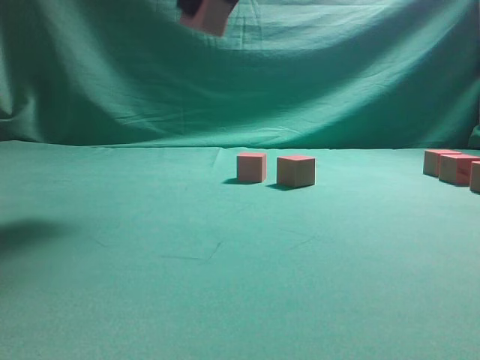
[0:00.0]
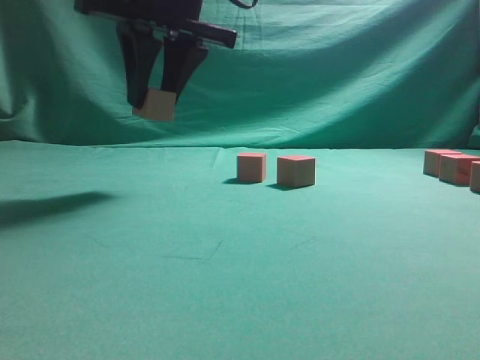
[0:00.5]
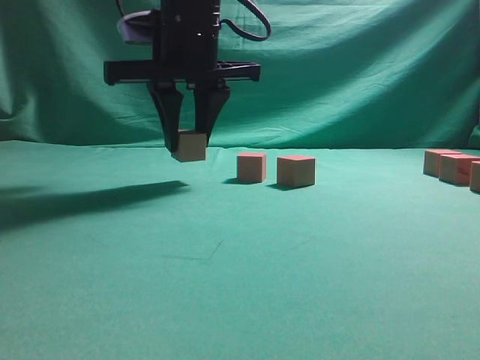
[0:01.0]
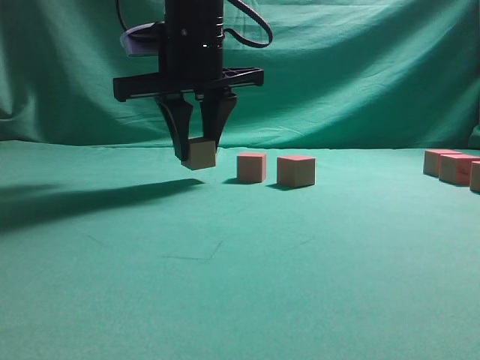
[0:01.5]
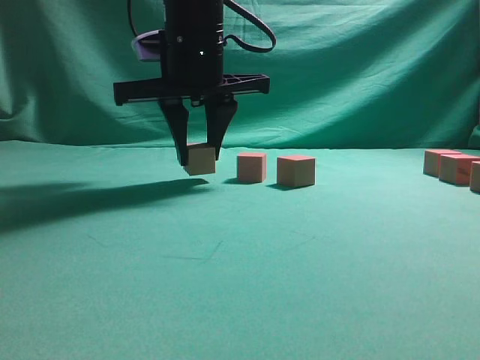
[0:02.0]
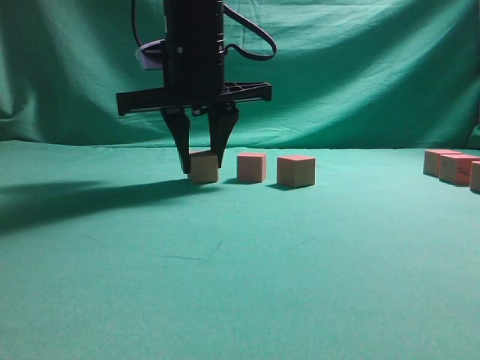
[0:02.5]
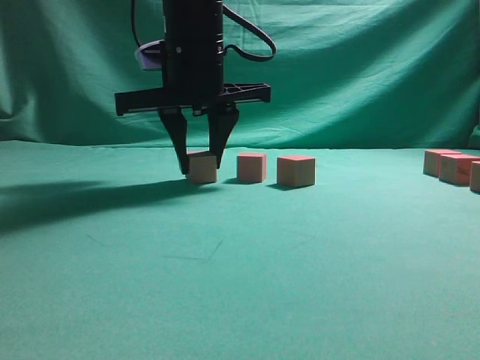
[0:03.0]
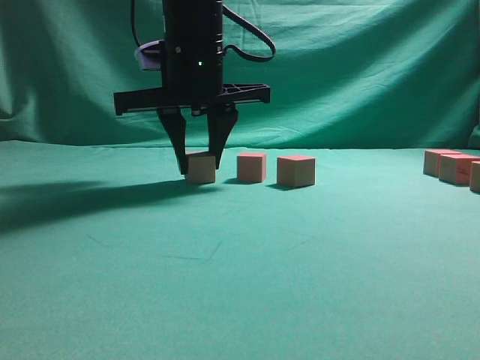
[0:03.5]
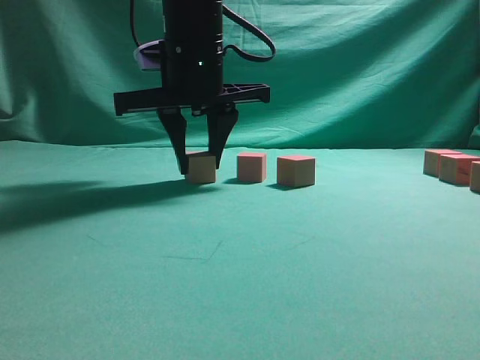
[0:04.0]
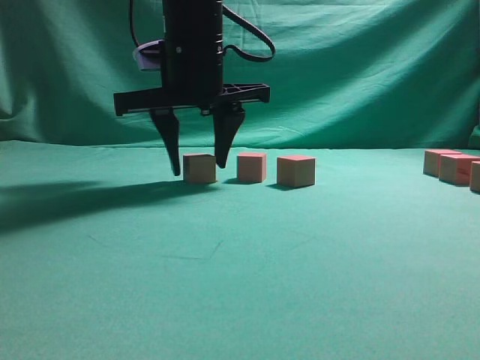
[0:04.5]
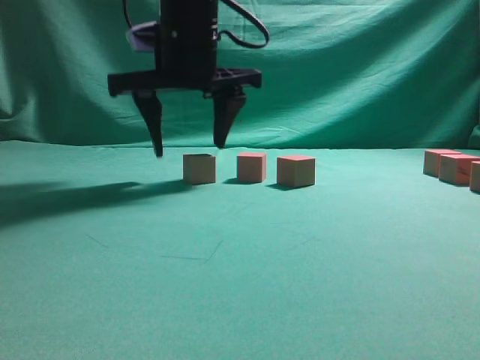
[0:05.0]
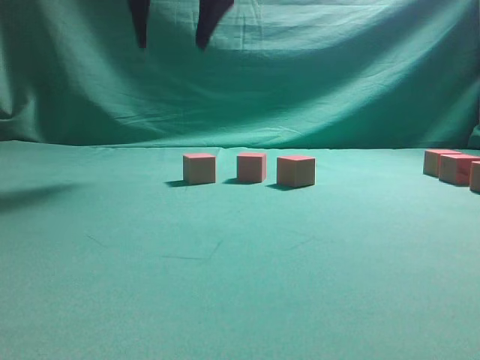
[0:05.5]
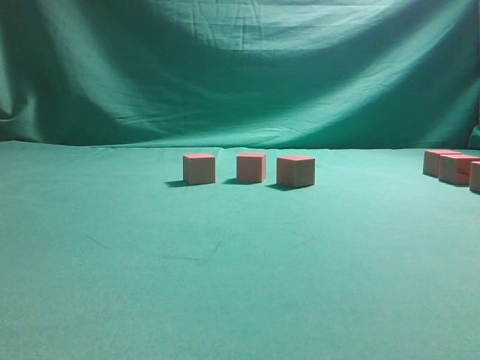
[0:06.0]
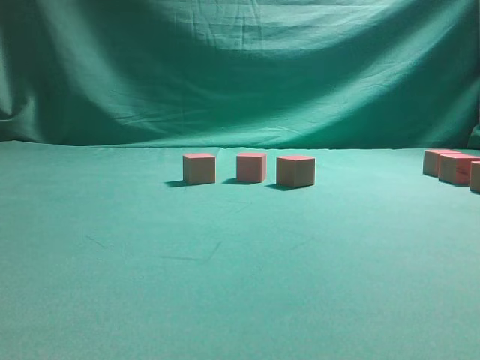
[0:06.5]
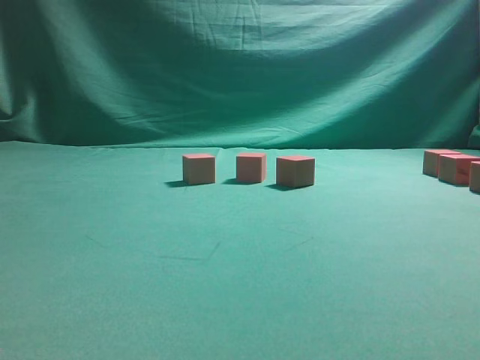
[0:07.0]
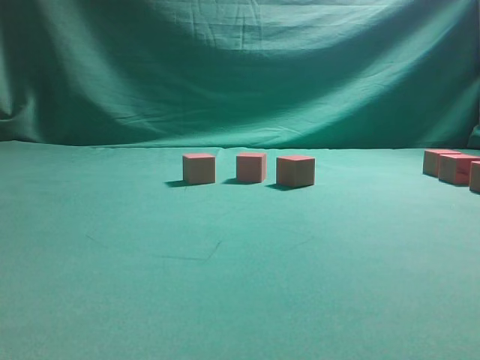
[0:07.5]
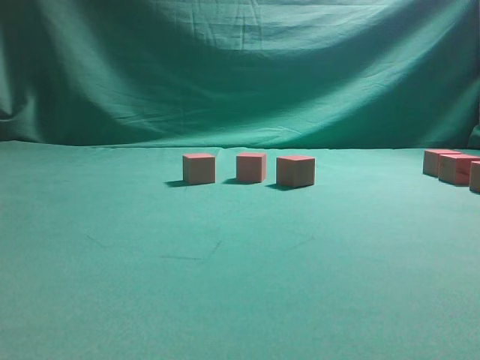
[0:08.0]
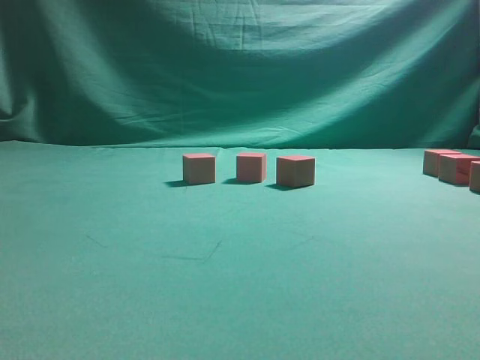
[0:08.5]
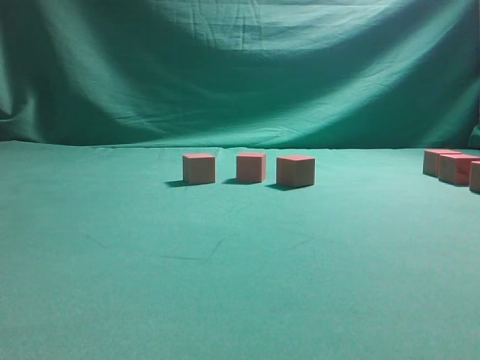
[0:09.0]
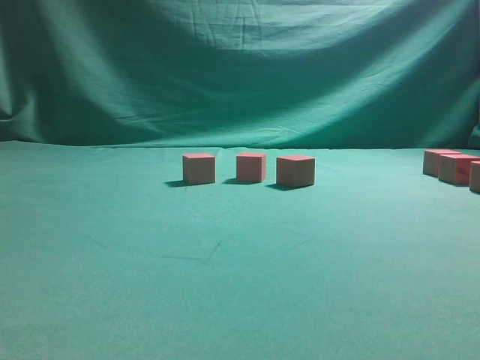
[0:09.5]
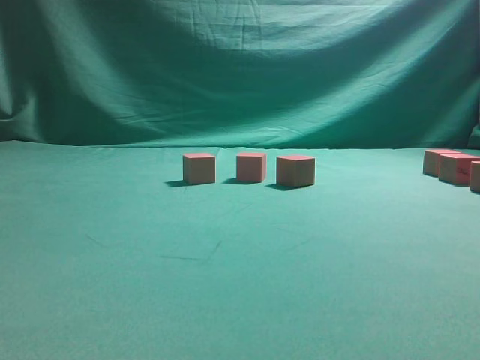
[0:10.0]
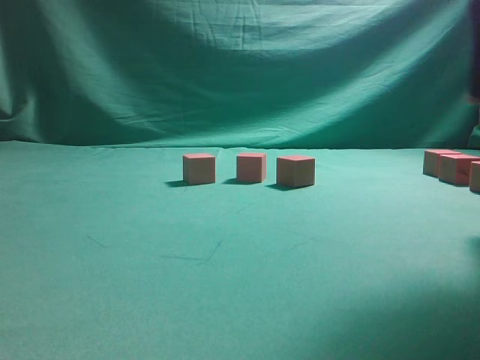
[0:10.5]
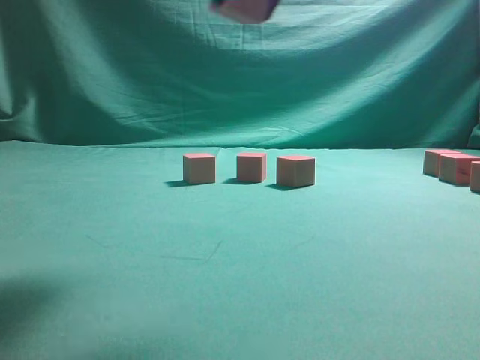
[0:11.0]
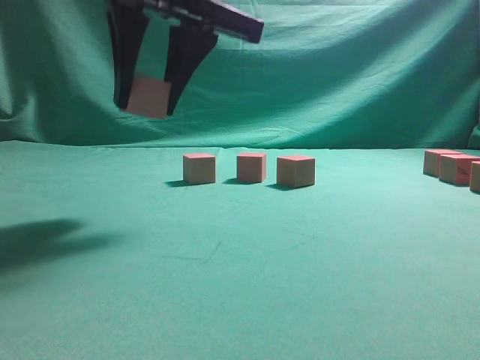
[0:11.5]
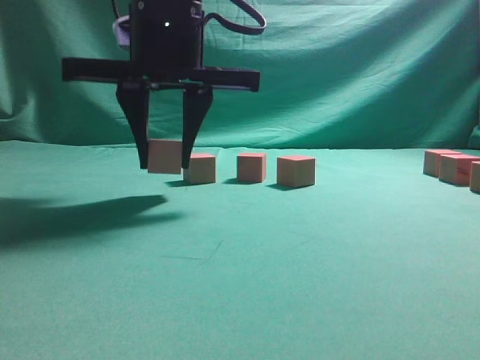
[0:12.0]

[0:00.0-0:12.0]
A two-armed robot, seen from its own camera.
Task of the whole recording: pick up the multiple cubes in two columns one by one and place them in another position on the table.
Step, 0:00.0 to 0:05.0: Place the block at the correct position to assemble the letter S.
Step, 0:05.5 to 0:11.0: Pick up the block on the table.
0:00.0 to 0:02.0: The right gripper is displaced downward, to the left and forward by some 15 cm.
0:02.0 to 0:04.0: Both grippers stay about where they are.
0:04.0 to 0:06.0: The right gripper is displaced upward by some 30 cm, and opens up.
0:10.0 to 0:12.0: The right gripper heads to the left, covering approximately 35 cm.

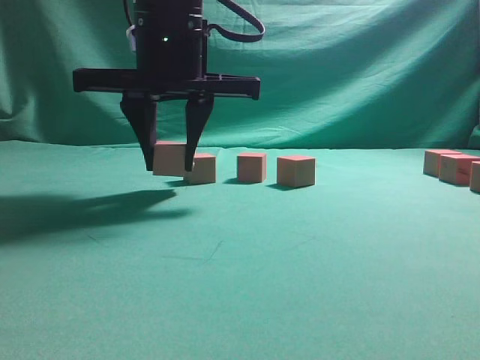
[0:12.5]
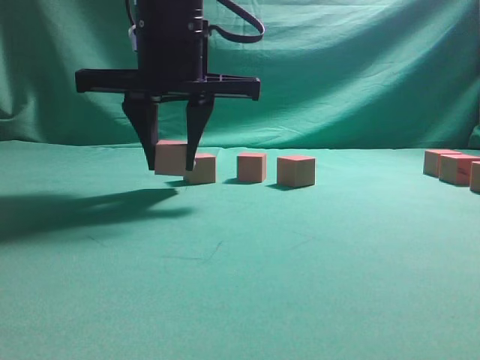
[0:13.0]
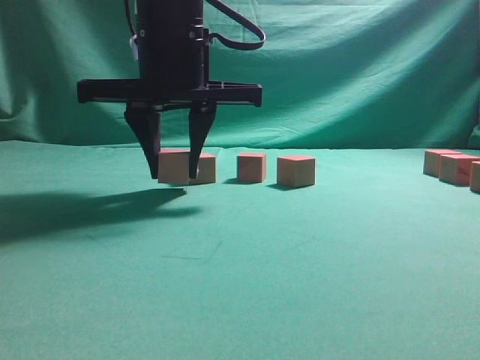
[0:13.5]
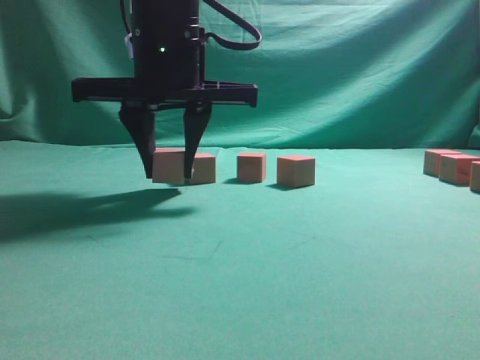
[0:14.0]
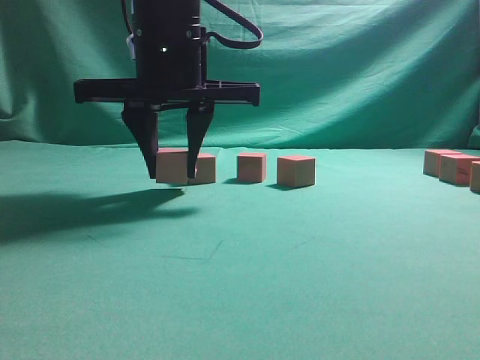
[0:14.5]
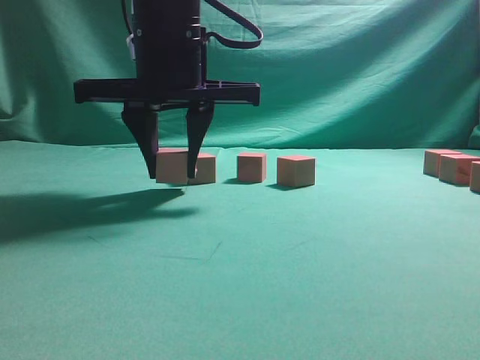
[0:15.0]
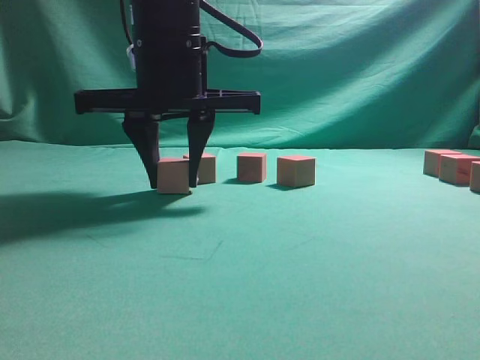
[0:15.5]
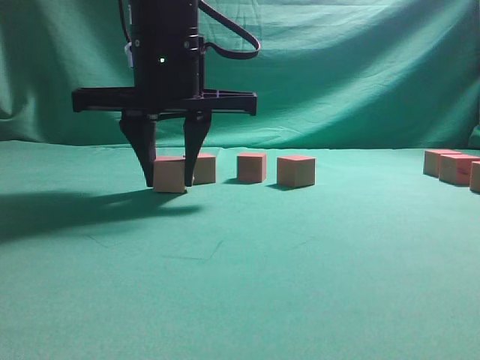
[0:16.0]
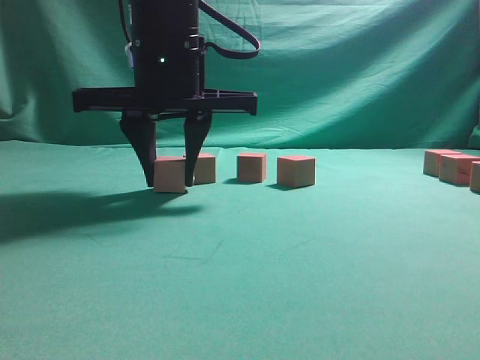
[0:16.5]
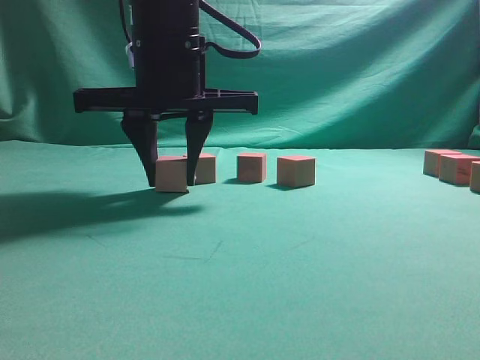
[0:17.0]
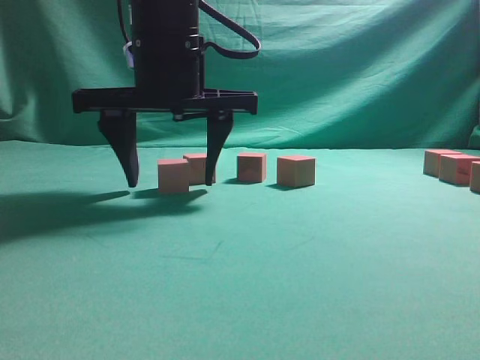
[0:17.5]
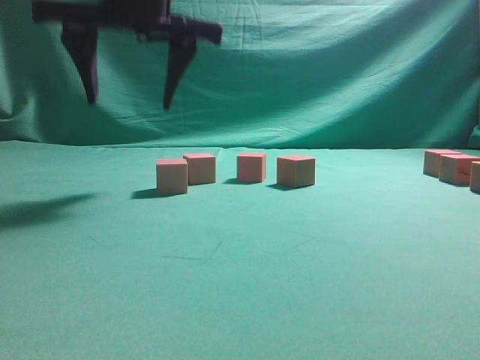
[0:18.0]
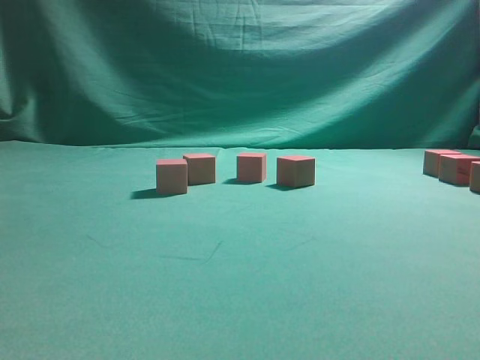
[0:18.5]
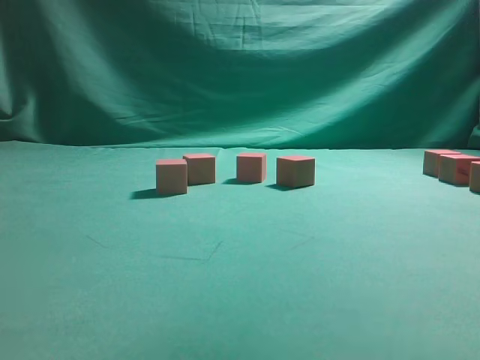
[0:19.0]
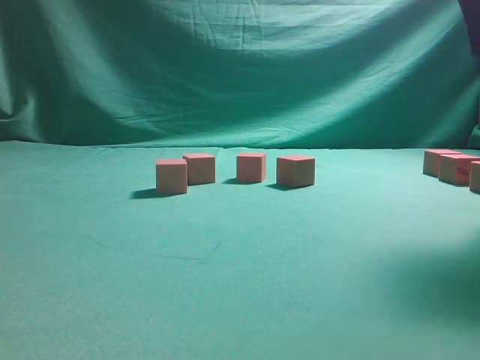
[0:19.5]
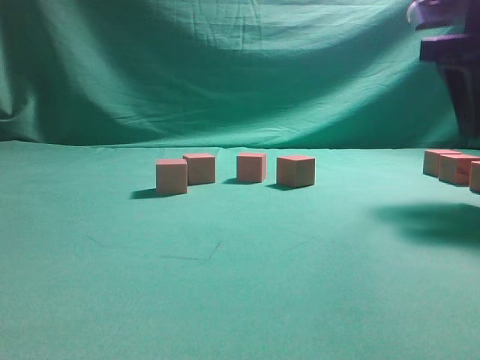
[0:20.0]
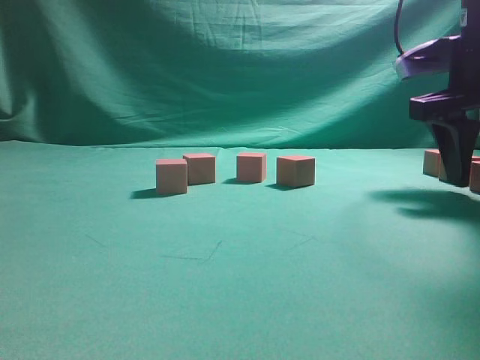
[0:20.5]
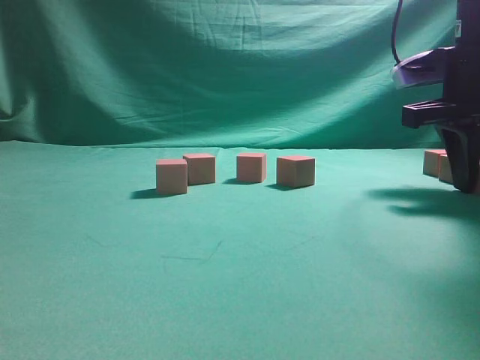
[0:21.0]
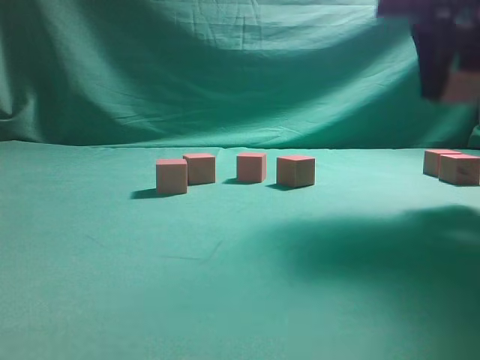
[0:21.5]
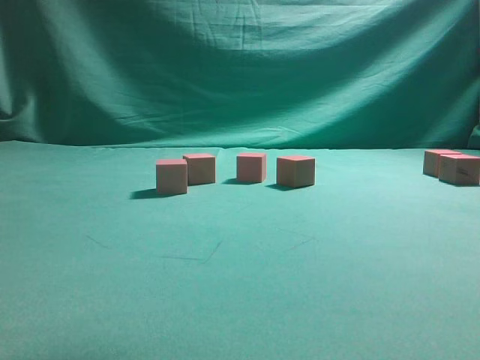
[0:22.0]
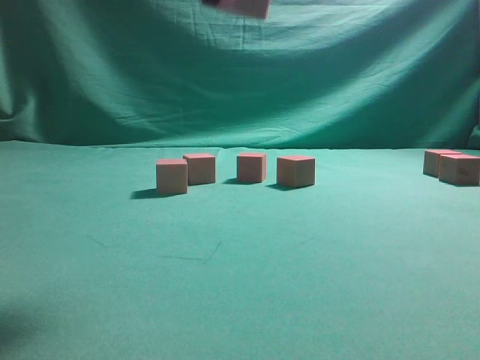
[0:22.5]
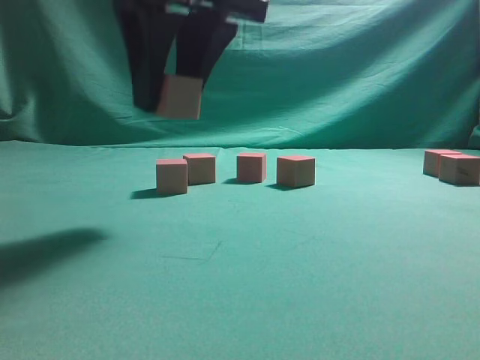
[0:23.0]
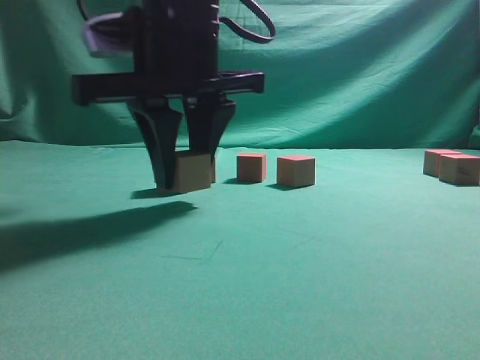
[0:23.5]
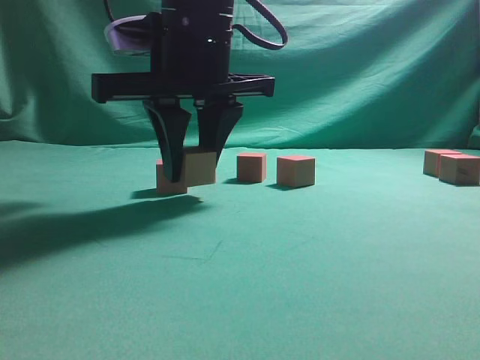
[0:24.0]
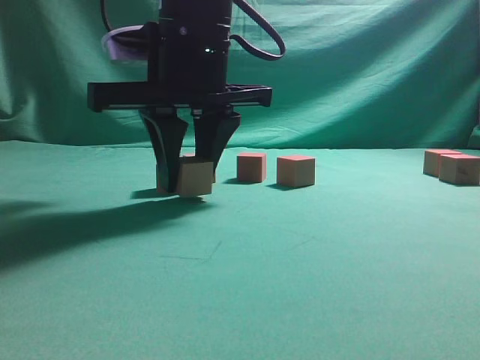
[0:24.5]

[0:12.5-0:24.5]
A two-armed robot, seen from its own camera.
Task of the whole recording: pick up the multiple cubes in two columns one by one and place them in another position on the table.
Step, 0:12.5 to 0:18.0: Place the block at the correct position to assemble the letter S.
Step, 0:18.5 to 0:21.5: Pick up the block on the table.
0:12.5 to 0:14.5: The two grippers keep their place.
0:14.5 to 0:16.5: Both grippers stay about where they are.
0:16.5 to 0:18.5: The right gripper travels upward by roughly 25 cm, and opens.
0:18.5 to 0:20.5: The right gripper moves to the right and downward, roughly 35 cm.
0:20.5 to 0:22.5: The right gripper is displaced to the left, backward and upward by approximately 25 cm, and closes.
0:22.5 to 0:24.5: The right gripper travels downward, forward and to the left by some 15 cm.

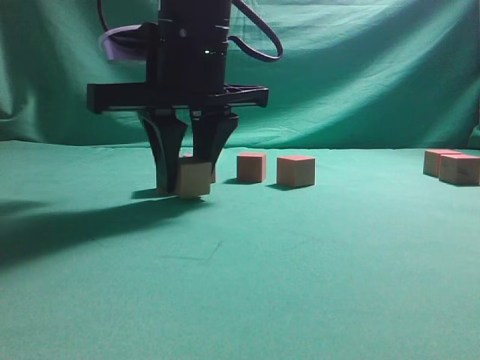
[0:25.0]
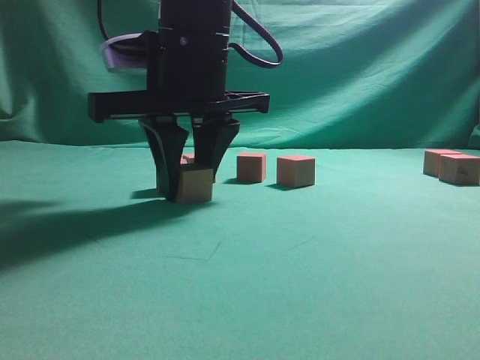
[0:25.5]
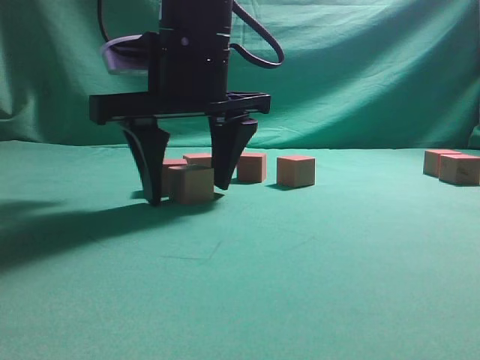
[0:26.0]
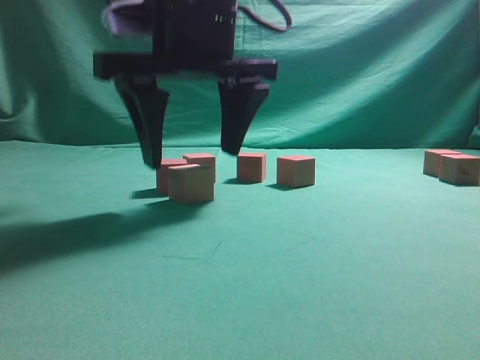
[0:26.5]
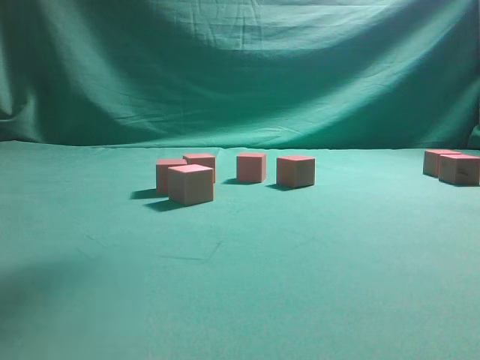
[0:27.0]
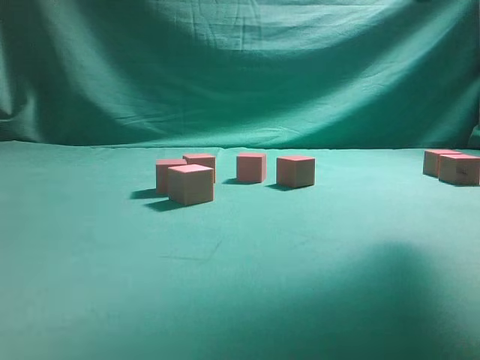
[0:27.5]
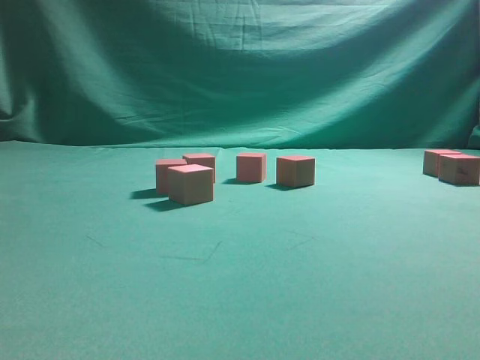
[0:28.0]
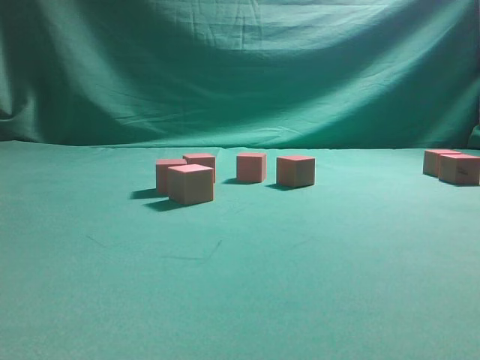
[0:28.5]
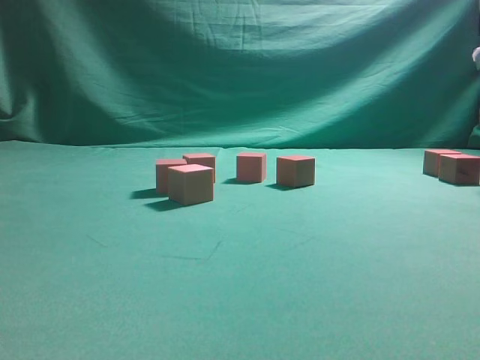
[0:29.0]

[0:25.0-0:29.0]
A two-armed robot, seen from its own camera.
Task of the whole recording: pick up the multiple cubes in two columns one by one and place them in another position on the table.
0:25.0 to 0:27.0: The right gripper goes about 20 cm upward and to the right, and opens its fingers.
